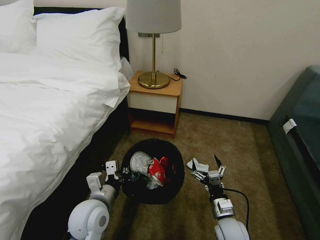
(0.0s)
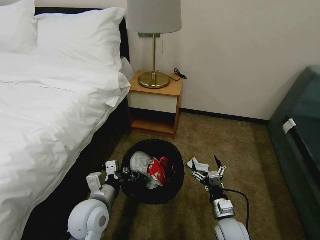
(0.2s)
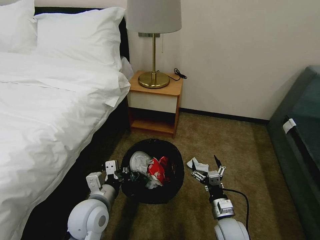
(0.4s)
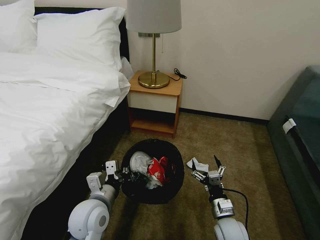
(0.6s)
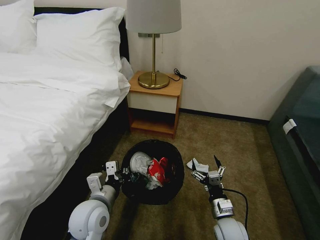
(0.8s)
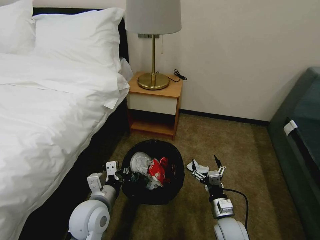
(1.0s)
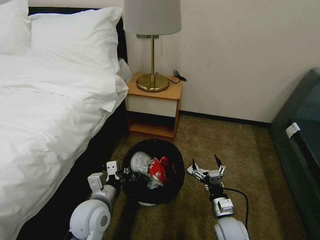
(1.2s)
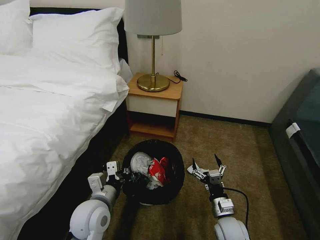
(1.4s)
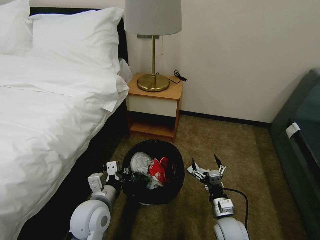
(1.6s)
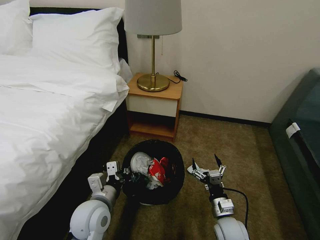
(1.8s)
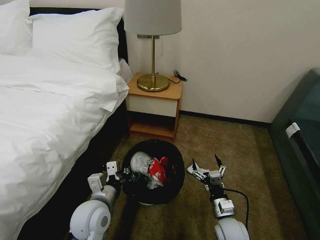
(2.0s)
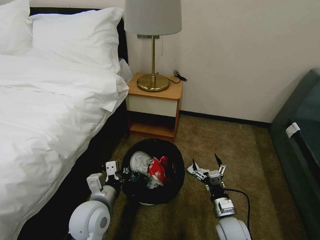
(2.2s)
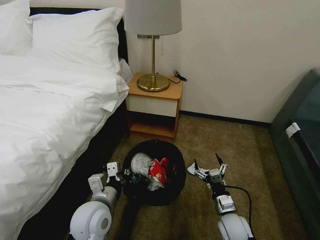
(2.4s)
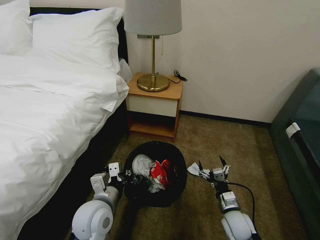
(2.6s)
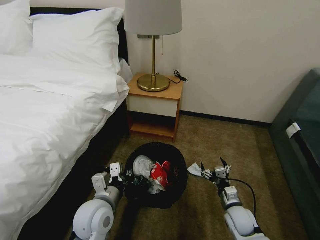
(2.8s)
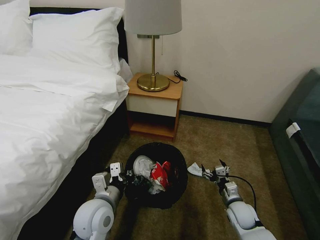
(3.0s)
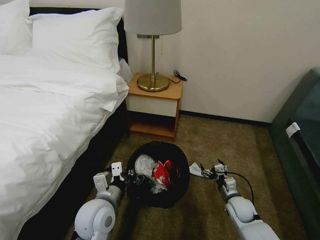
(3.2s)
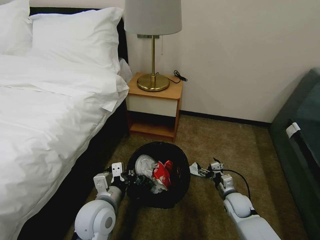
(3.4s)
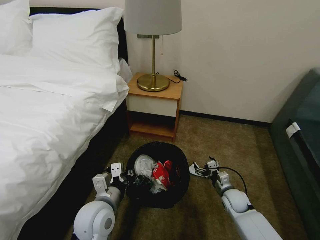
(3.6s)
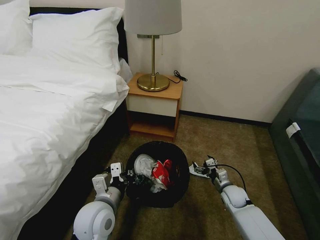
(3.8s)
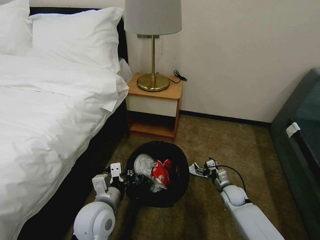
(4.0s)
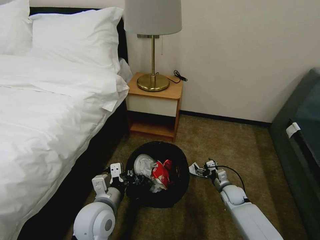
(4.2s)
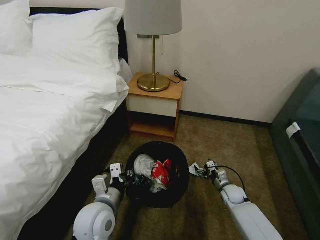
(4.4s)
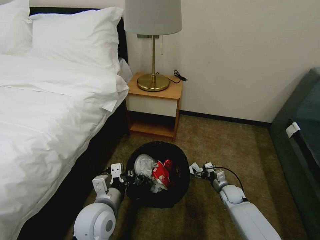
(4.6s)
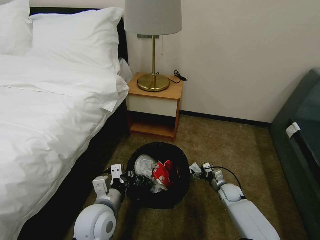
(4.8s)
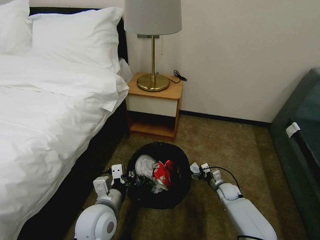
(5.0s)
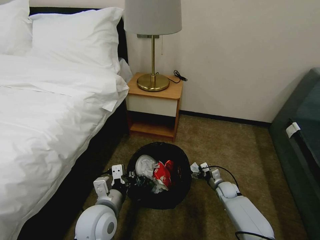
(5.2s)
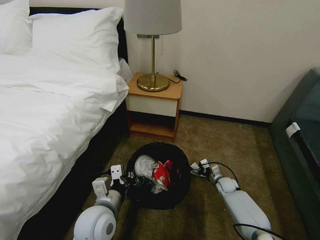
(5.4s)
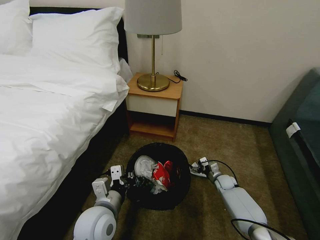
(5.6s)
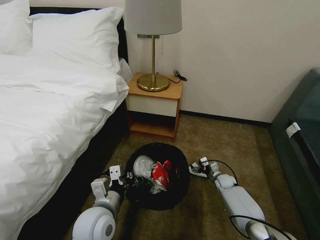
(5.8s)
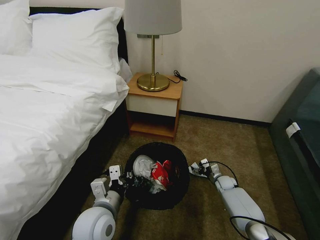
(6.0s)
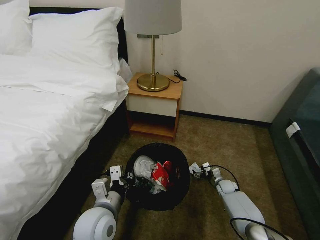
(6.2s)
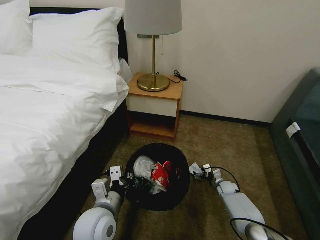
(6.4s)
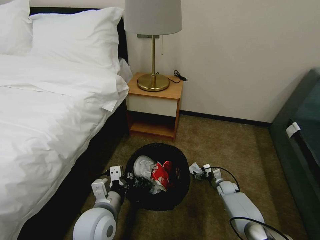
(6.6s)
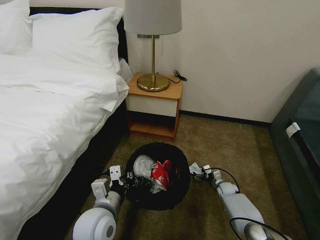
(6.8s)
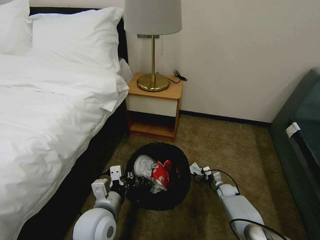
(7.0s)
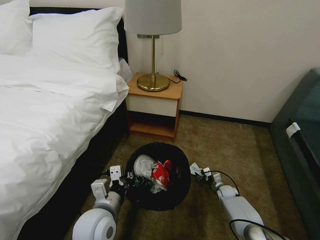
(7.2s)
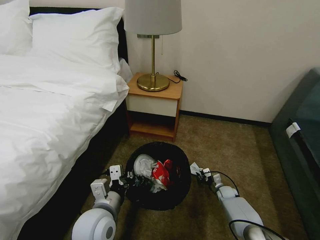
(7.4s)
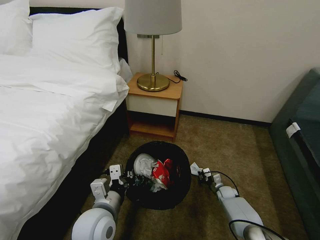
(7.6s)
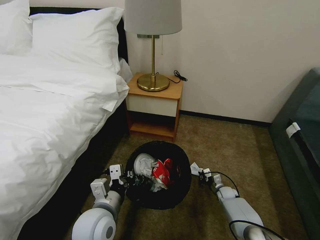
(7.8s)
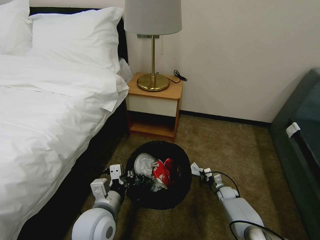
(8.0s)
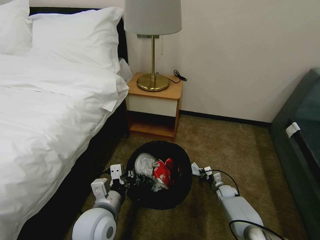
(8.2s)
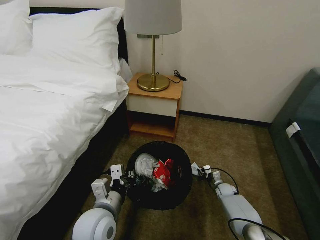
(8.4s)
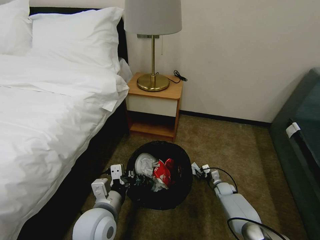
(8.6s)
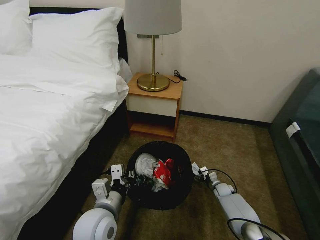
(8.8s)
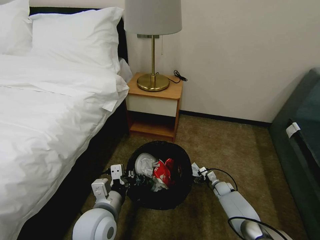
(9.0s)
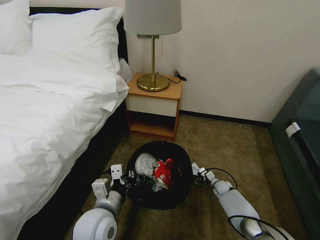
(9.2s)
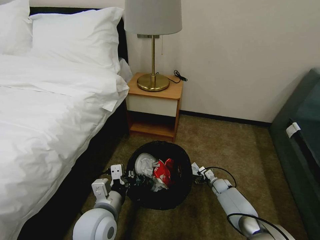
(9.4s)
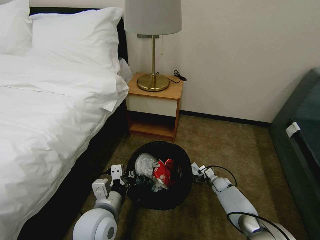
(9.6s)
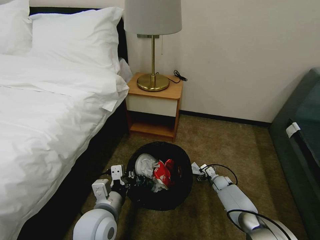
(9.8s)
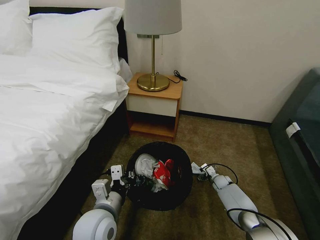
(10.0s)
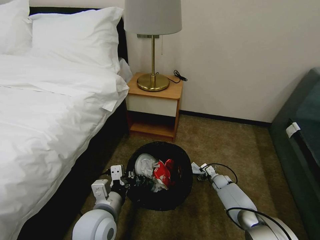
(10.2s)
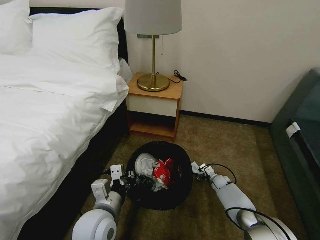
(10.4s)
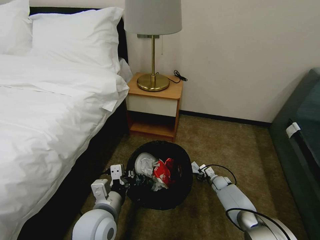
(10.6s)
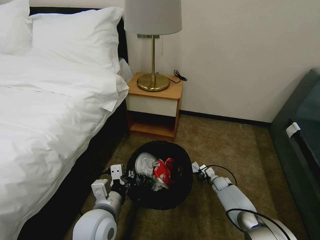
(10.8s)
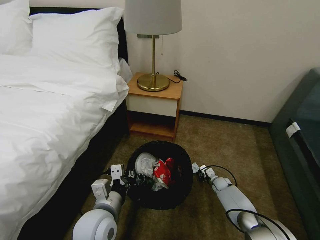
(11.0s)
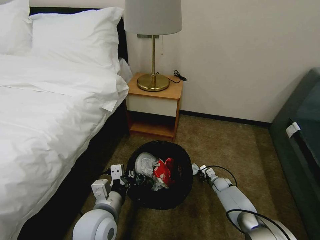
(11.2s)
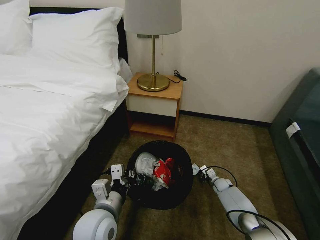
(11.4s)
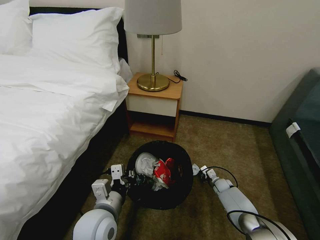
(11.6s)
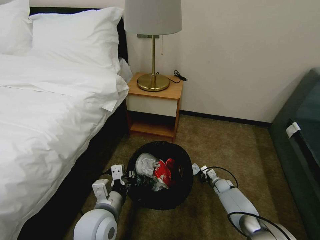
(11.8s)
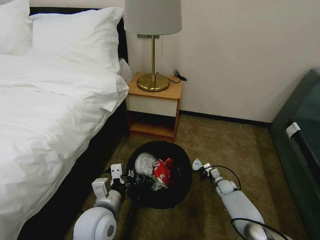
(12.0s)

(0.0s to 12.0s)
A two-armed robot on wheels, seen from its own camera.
Task of the whole recording: Pick up the trash bin, then pick up the garbage on the floor and place it into the trash bin.
0.0s - 1.6s: Both grippers stay put.
1.6s - 3.0s: The right gripper heads to the right and forward, covering about 10 cm.
3.0s - 4.4s: The right gripper moves forward, approximately 10 cm.
4.4s - 6.0s: The right gripper goes about 5 cm forward.
6.0s - 7.6s: The right gripper moves approximately 5 cm, and closes.
7.6s - 9.0s: The right gripper opens.
9.0s - 10.4s: The grippers stay close to where they were, moving slightly.
10.4s - 12.0s: The right gripper closes up.

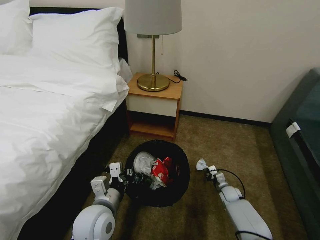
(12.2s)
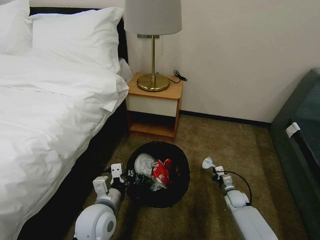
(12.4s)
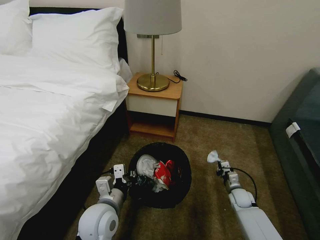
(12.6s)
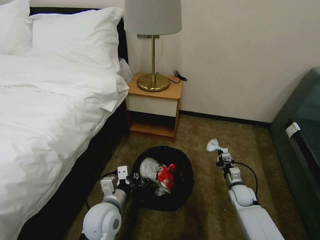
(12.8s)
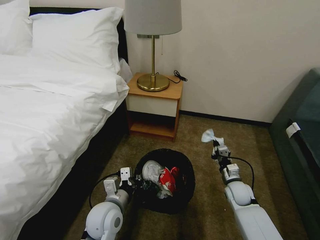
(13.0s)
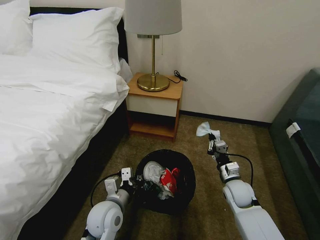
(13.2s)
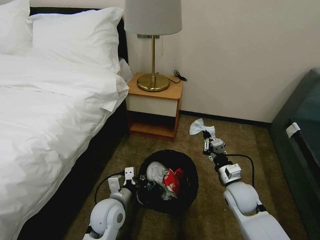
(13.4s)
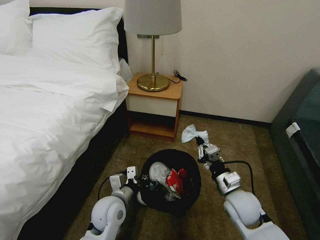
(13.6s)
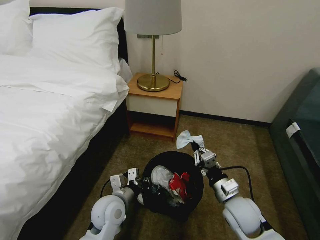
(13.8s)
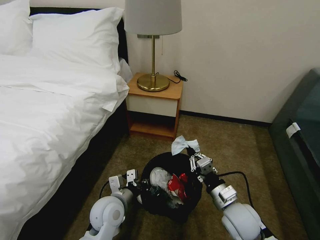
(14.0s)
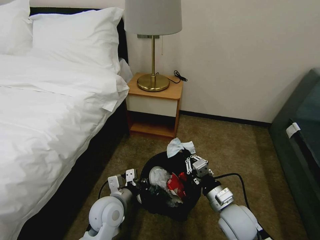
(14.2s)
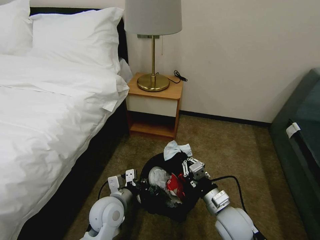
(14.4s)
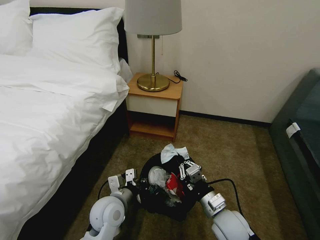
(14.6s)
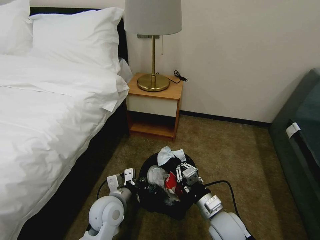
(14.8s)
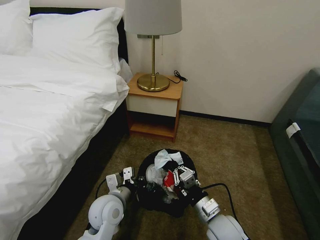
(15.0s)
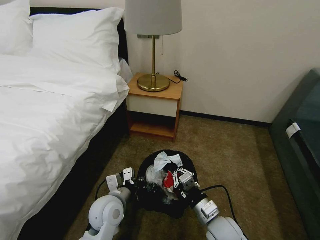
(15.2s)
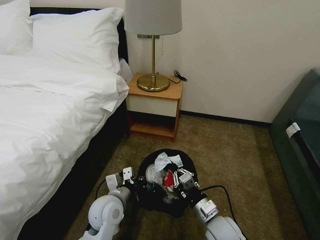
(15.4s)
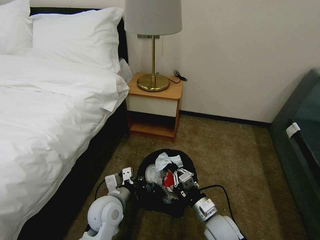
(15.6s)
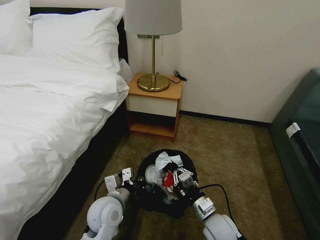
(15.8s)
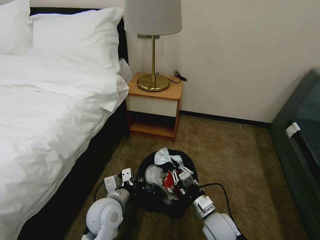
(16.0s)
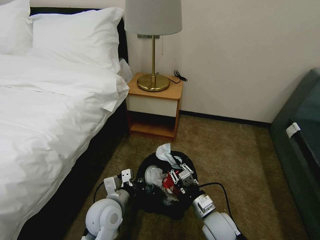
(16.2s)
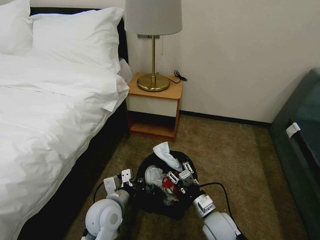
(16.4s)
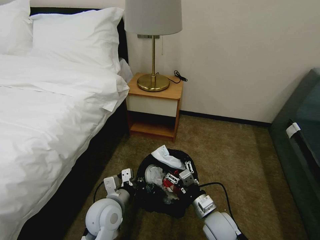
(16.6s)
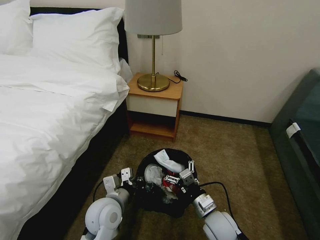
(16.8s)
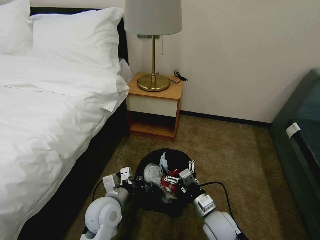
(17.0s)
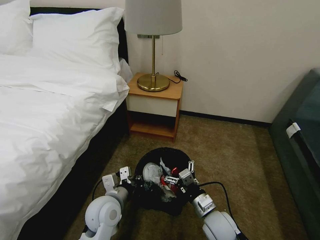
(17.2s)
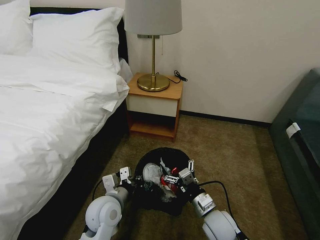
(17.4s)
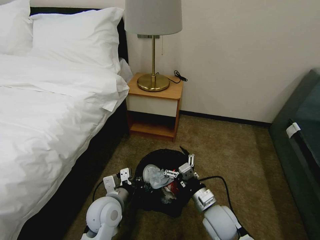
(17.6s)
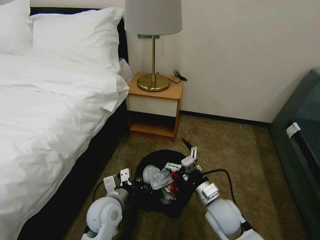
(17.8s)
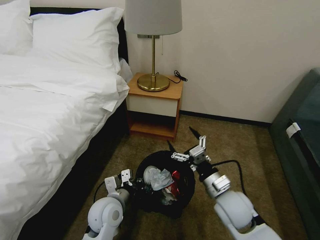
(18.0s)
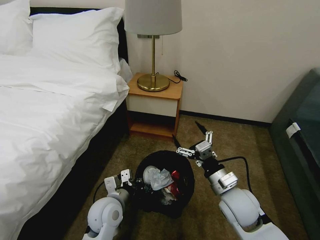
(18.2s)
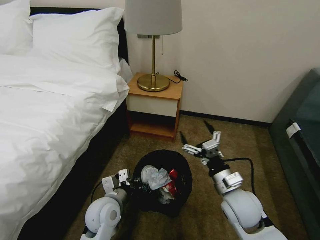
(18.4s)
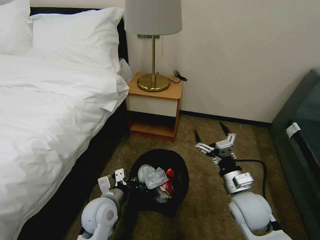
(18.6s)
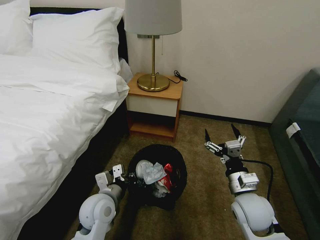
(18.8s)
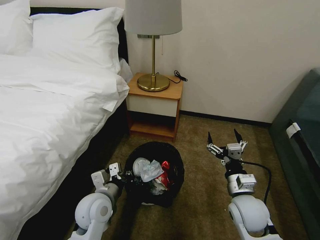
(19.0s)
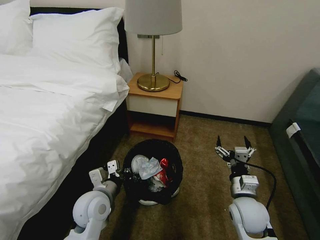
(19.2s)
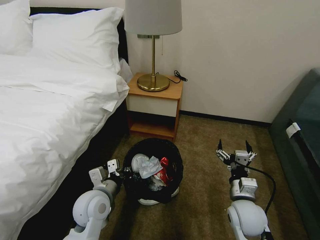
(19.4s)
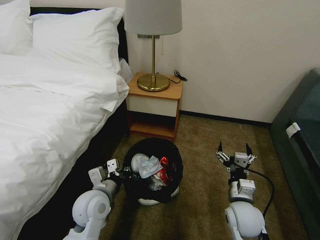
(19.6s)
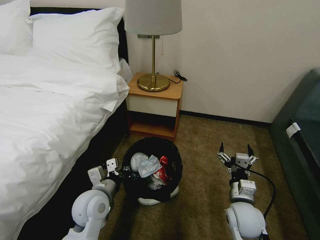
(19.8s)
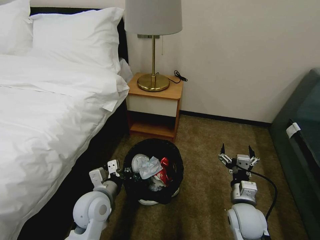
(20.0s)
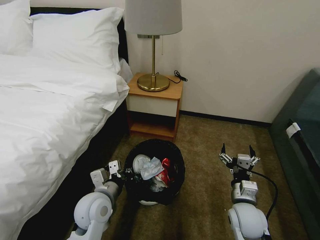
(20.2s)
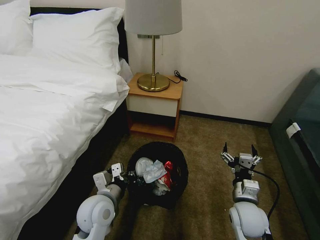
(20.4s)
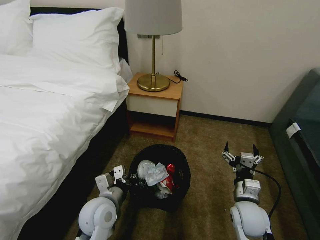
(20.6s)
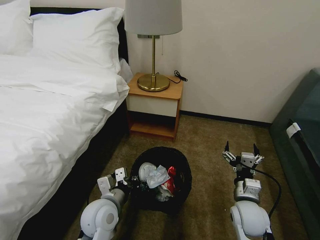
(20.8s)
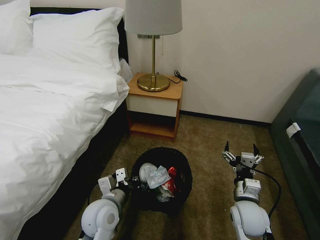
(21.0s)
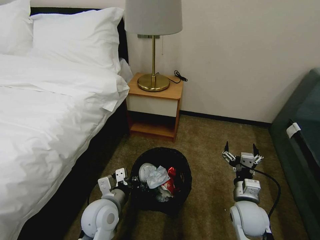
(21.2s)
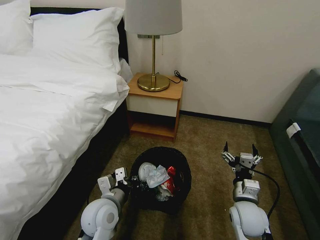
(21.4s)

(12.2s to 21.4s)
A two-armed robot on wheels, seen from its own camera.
Task of the whole recording: Pick up the trash bin, then pick up the garbage on the floor and place it into the trash bin.
12.2s - 13.8s: The right gripper is displaced upward, backward and to the left by about 30 cm. The left gripper ends up some 5 cm from where it was.
13.8s - 15.2s: The right gripper is displaced to the left and backward by roughly 10 cm.
15.2s - 16.8s: The right gripper opens its fingers.
16.8s - 18.4s: The right gripper goes roughly 10 cm upward.
18.4s - 19.8s: The right gripper goes about 5 cm downward.
19.8s - 21.4s: The grippers make only small movements.

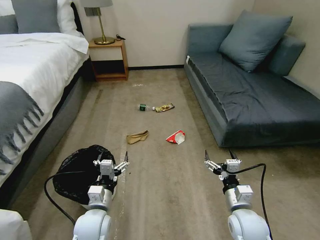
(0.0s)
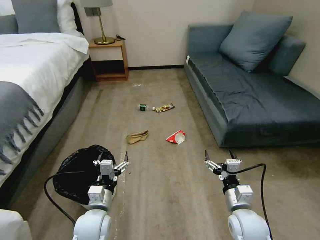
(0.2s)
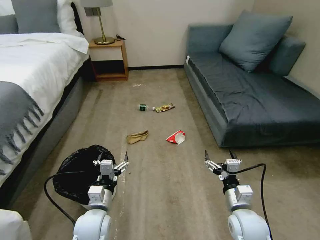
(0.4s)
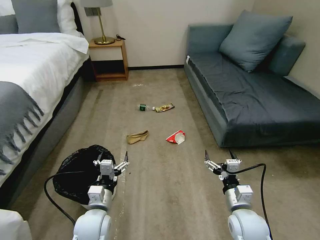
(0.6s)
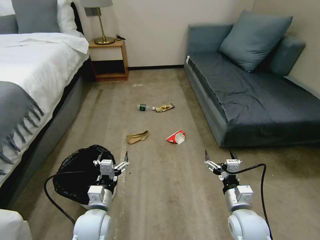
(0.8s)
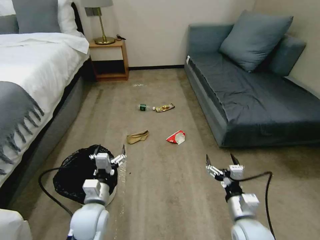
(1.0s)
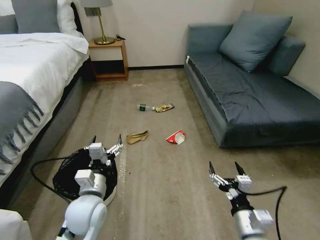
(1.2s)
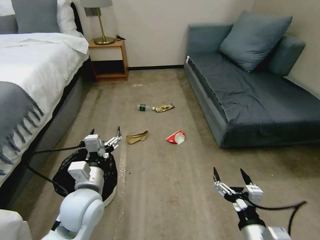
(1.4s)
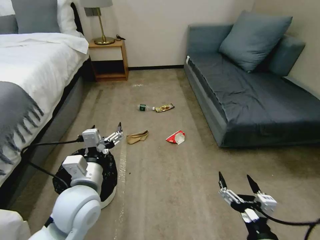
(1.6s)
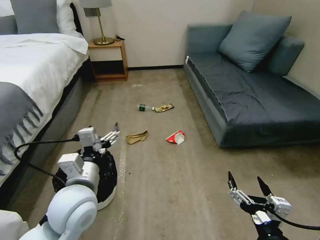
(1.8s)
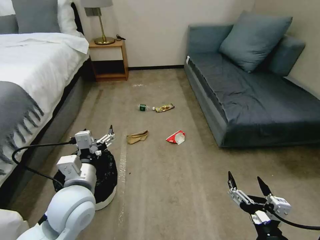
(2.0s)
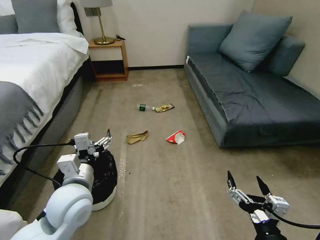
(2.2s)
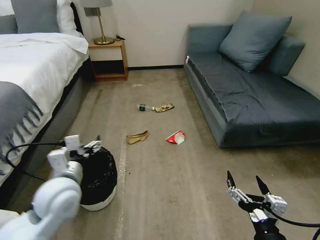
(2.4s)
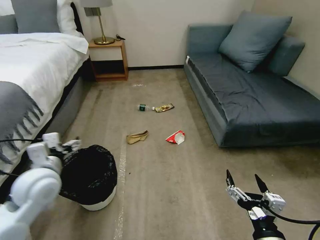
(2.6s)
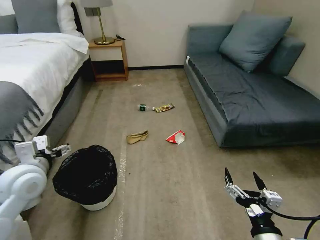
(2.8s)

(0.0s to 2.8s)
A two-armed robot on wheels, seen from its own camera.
Task of the whole recording: Pick up the trash bin, then pick up the garbage on the floor and place it into the trash bin.
1.4s - 2.8s: The left gripper moves to the left and upward, some 15 cm.
